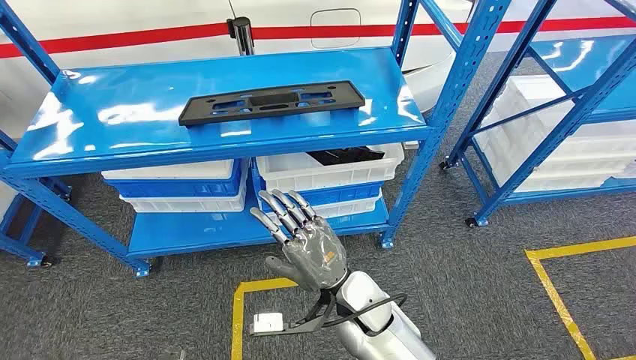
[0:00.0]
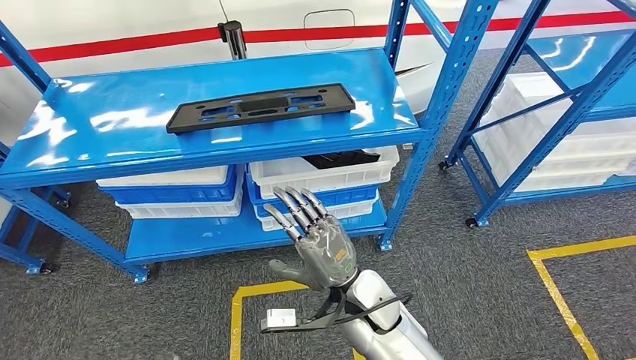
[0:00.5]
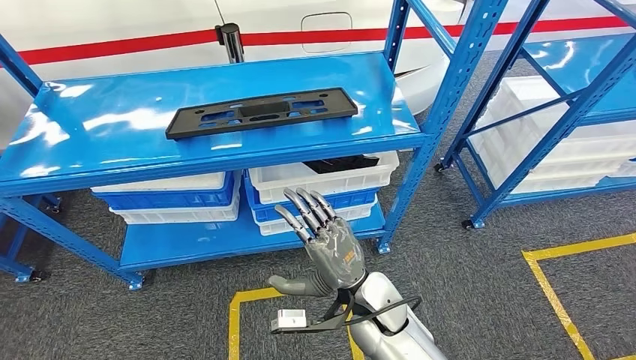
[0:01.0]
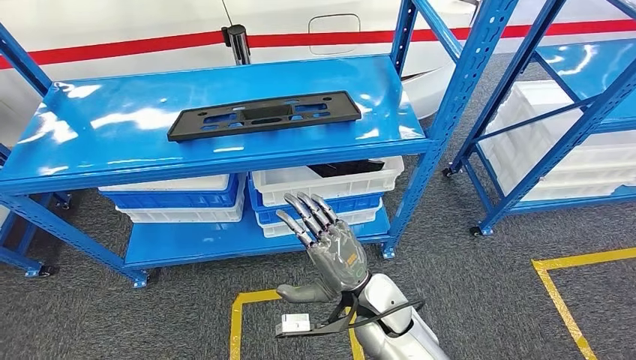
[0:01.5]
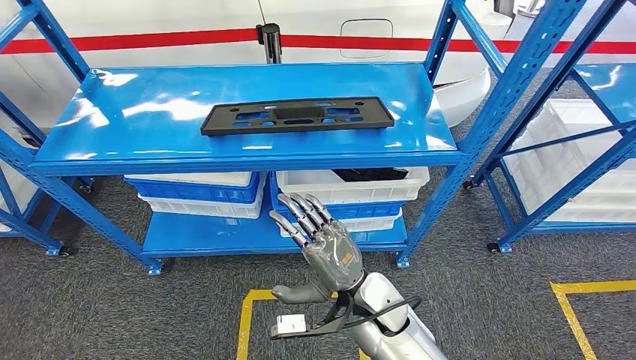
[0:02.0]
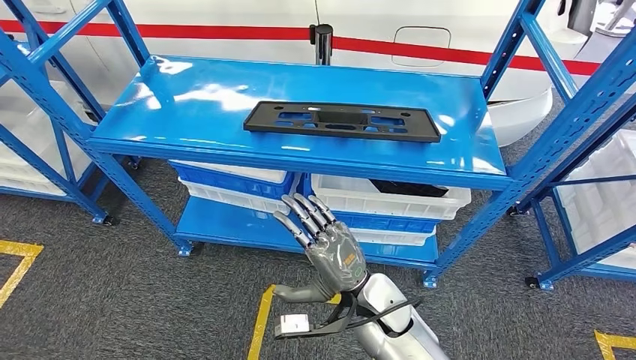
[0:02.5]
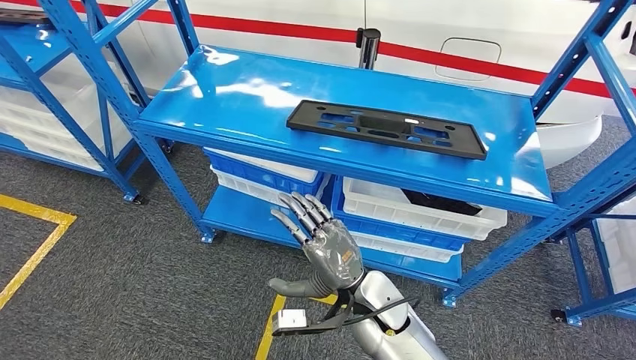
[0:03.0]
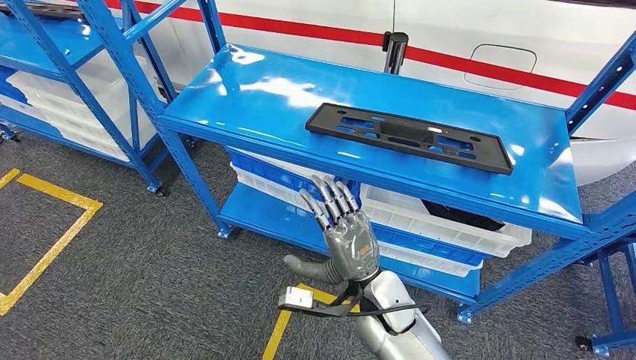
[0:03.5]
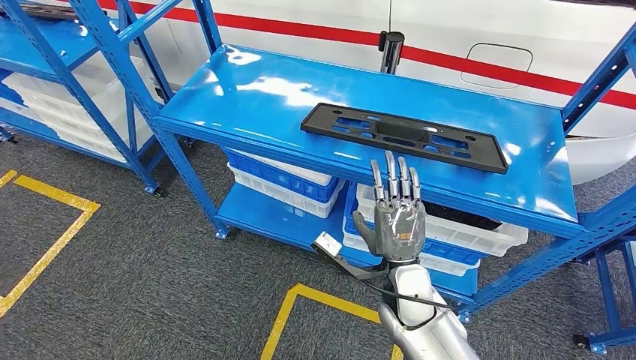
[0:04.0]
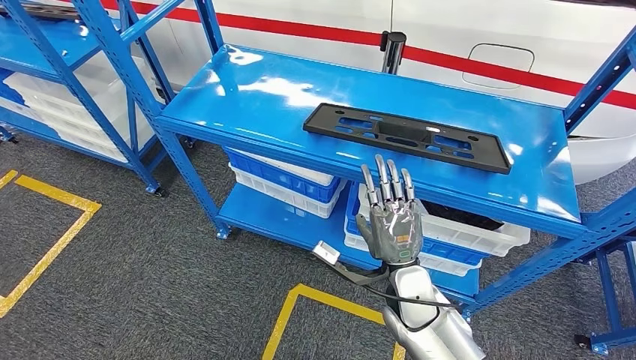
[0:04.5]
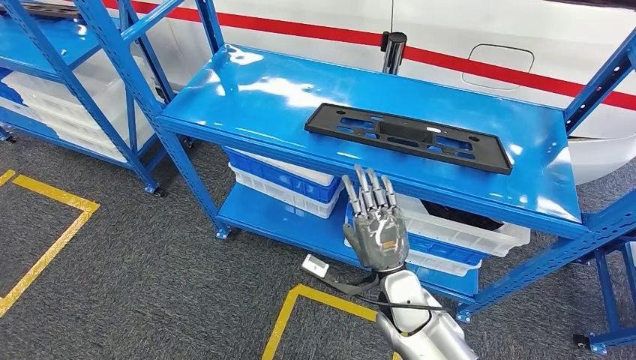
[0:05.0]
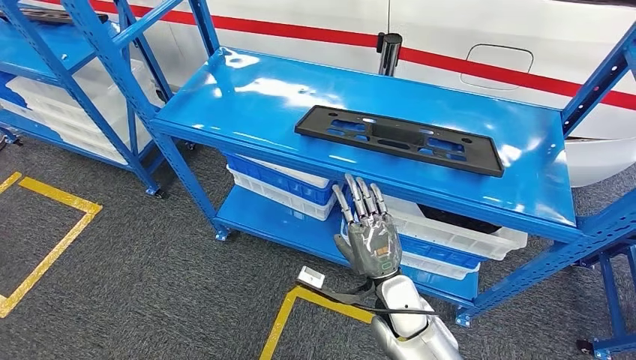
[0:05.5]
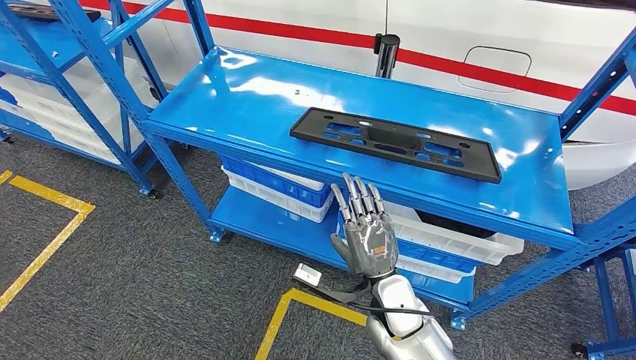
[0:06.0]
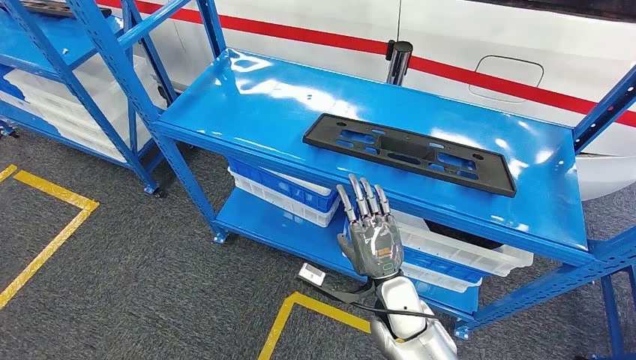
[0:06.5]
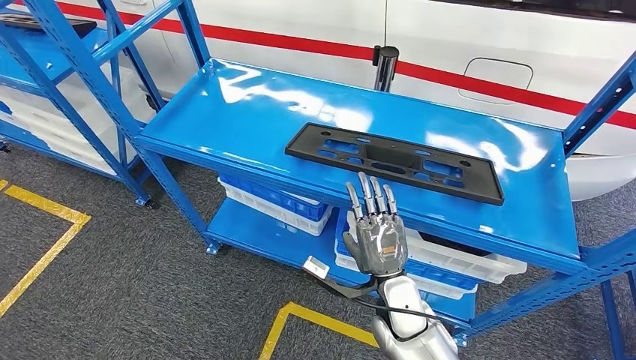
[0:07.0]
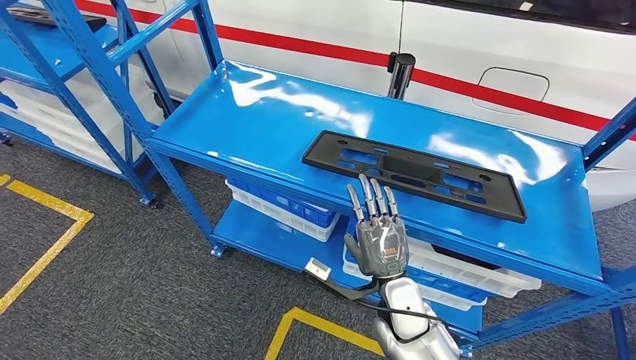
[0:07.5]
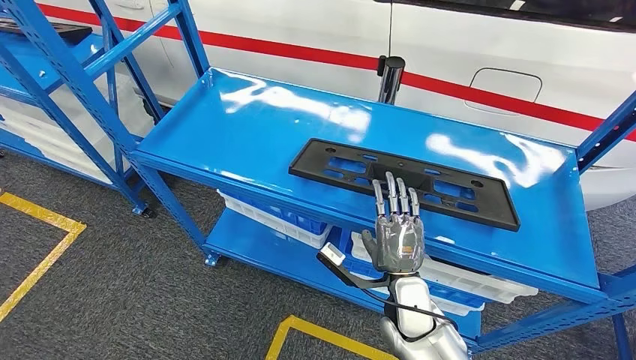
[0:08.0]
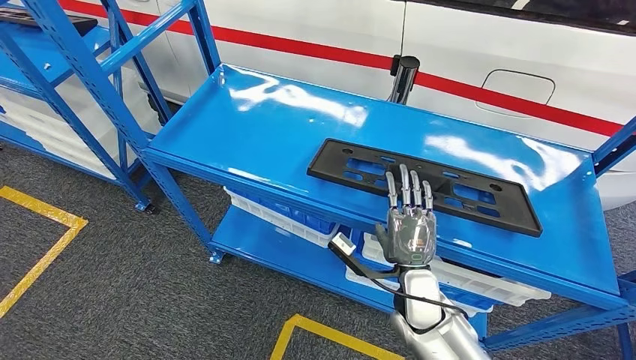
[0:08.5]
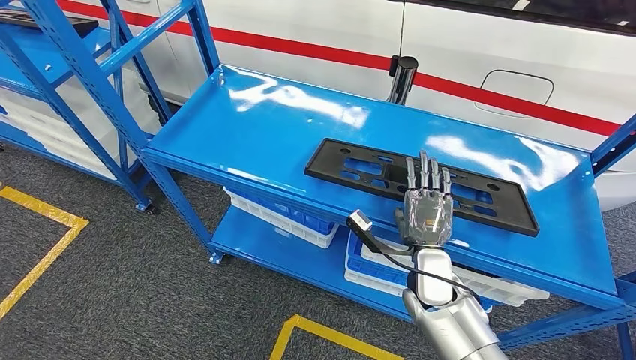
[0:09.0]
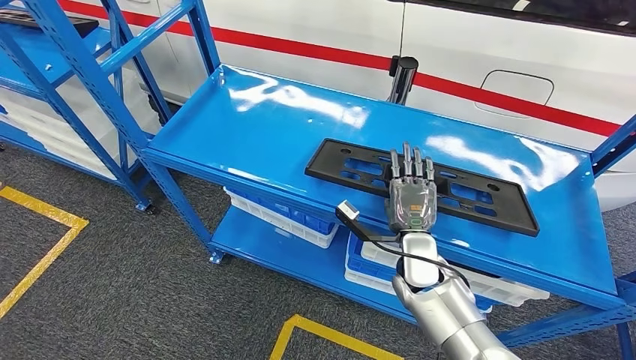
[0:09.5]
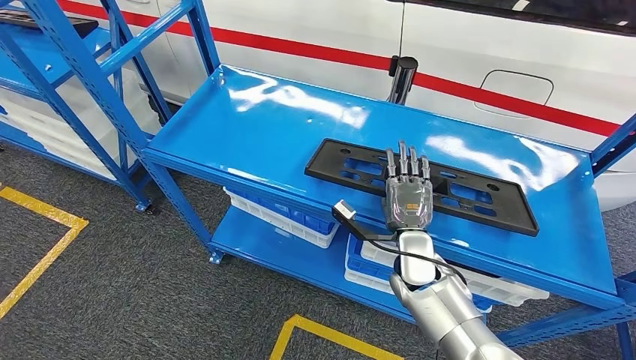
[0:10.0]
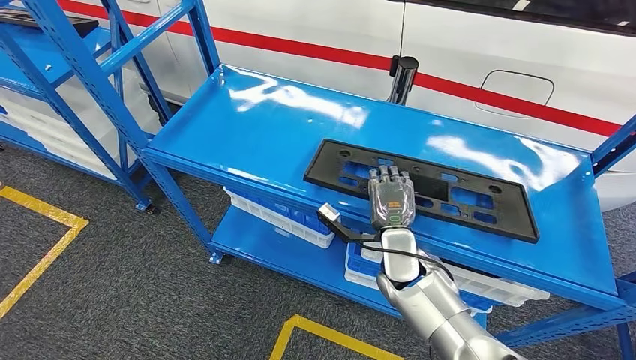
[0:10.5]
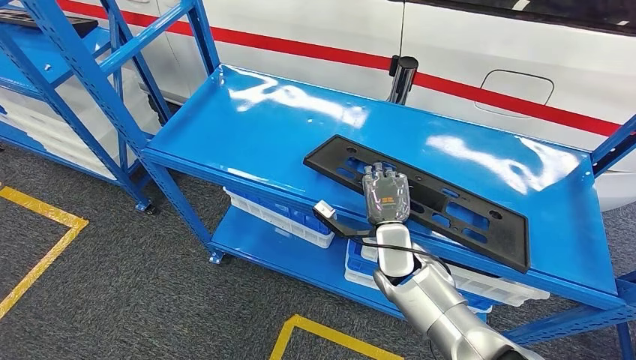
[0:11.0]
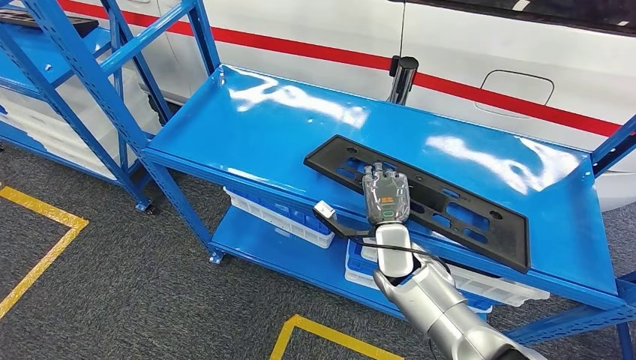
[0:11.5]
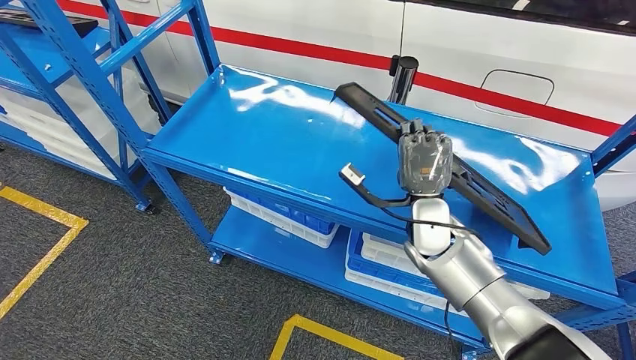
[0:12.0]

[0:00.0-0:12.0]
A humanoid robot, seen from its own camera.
0:10.0 to 0:12.0: The right hand goes approximately 5 cm upward.

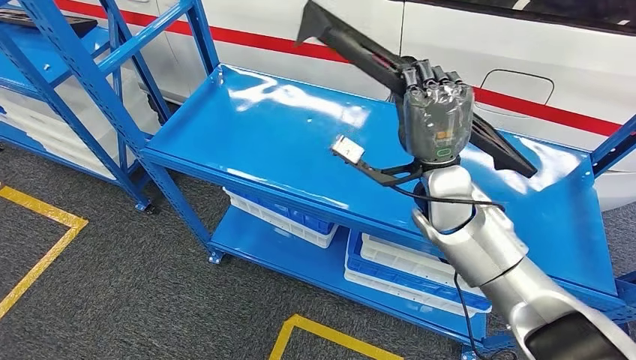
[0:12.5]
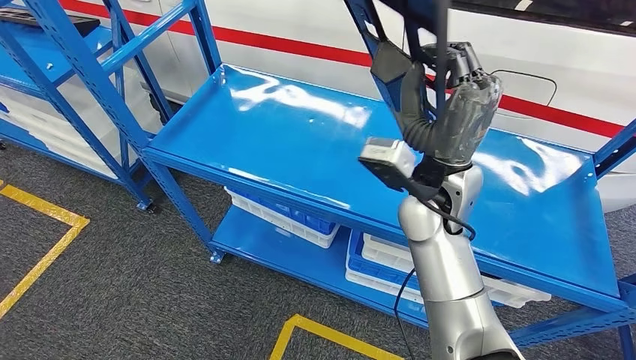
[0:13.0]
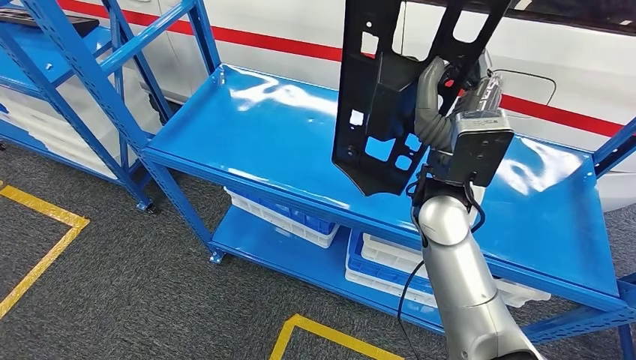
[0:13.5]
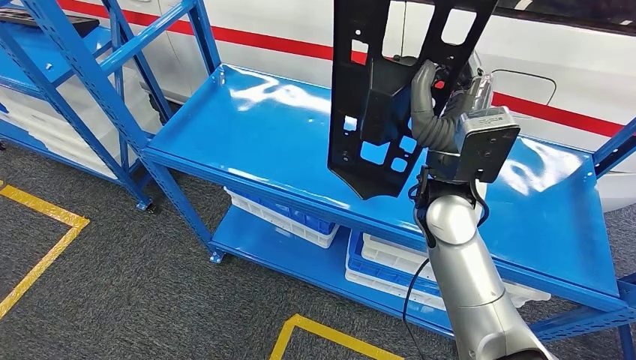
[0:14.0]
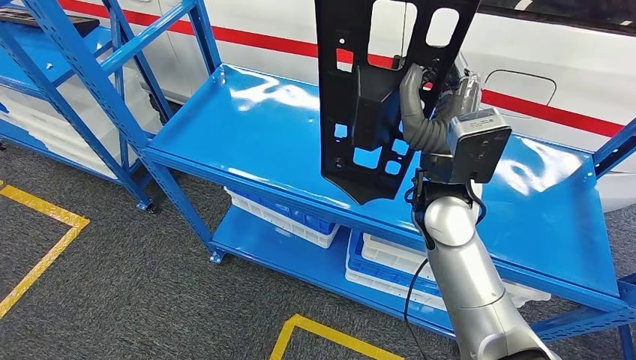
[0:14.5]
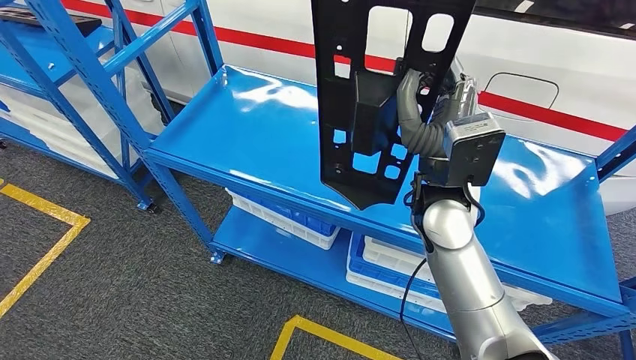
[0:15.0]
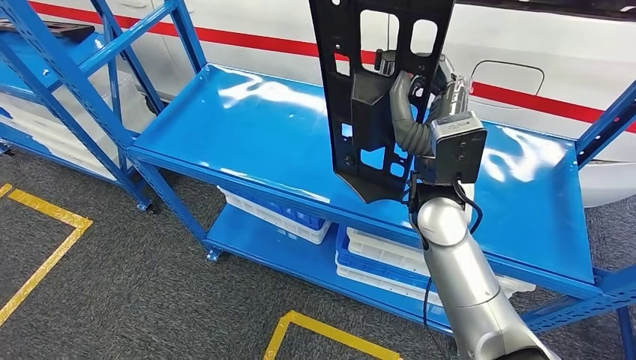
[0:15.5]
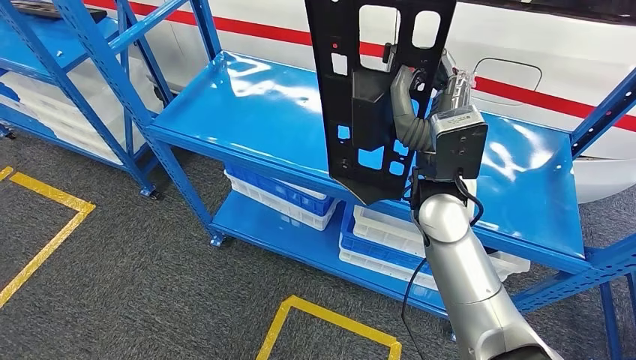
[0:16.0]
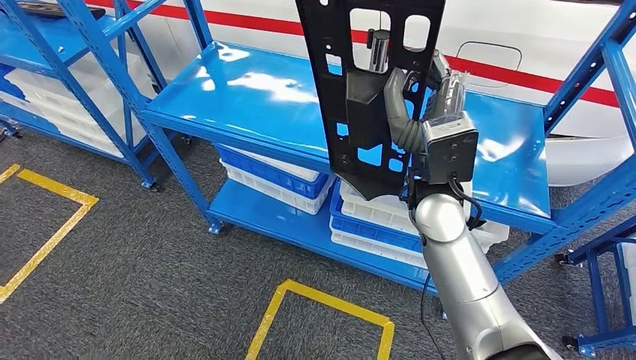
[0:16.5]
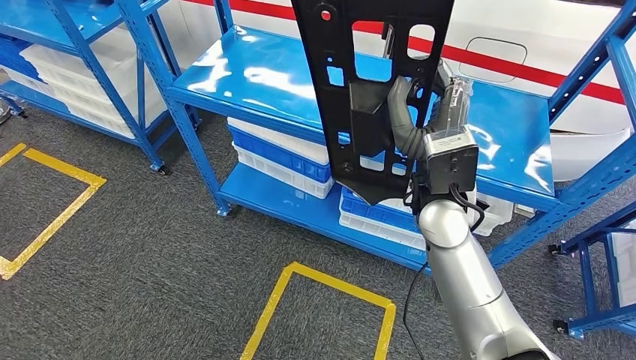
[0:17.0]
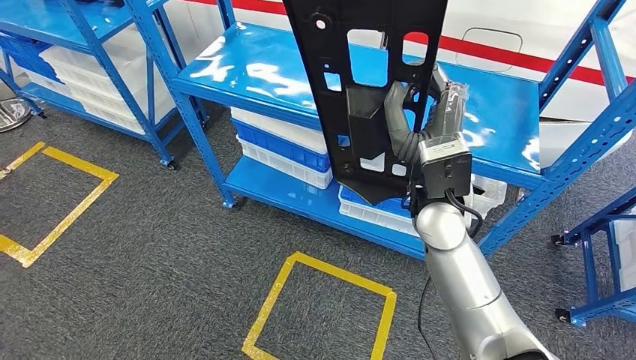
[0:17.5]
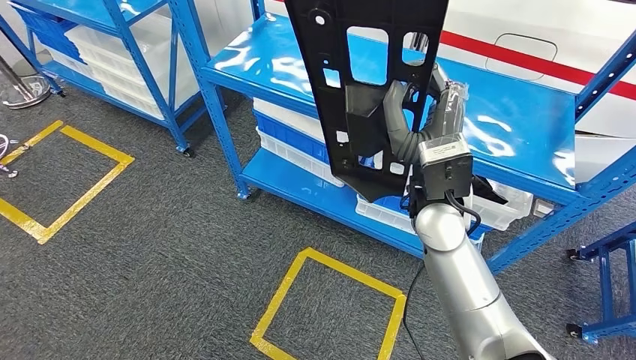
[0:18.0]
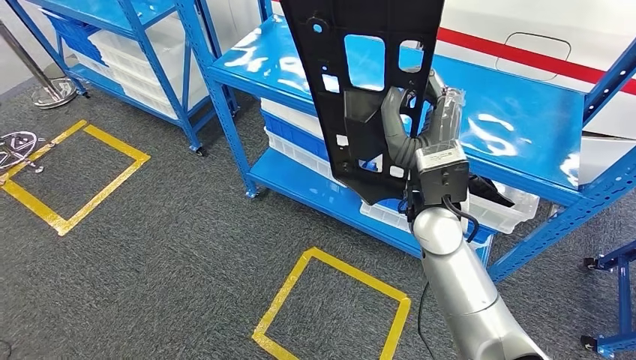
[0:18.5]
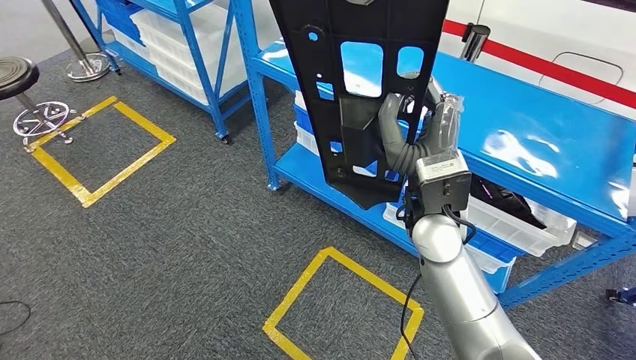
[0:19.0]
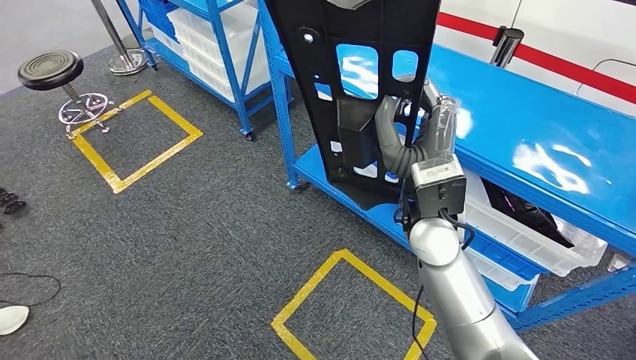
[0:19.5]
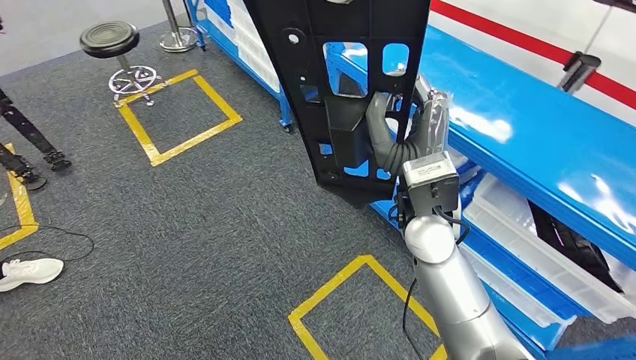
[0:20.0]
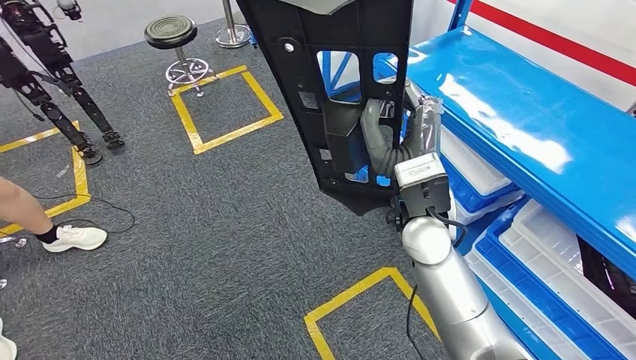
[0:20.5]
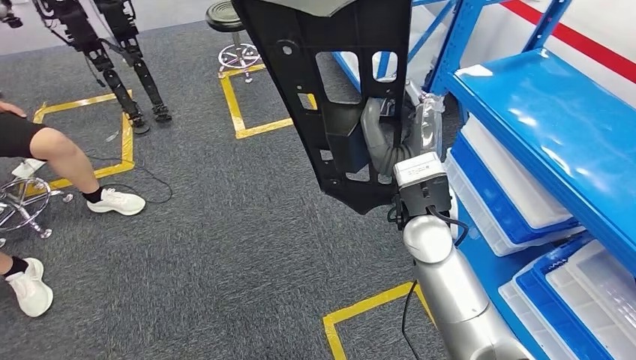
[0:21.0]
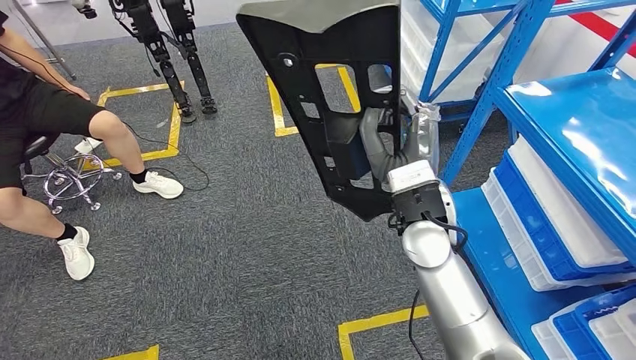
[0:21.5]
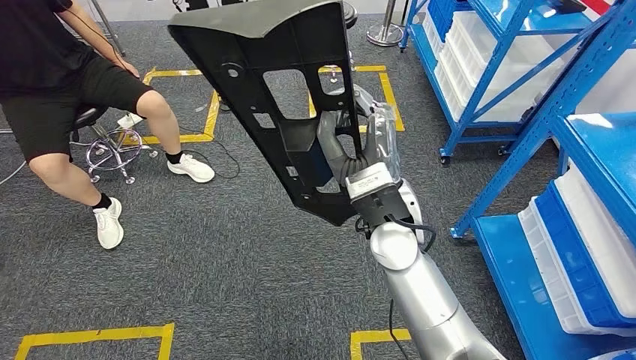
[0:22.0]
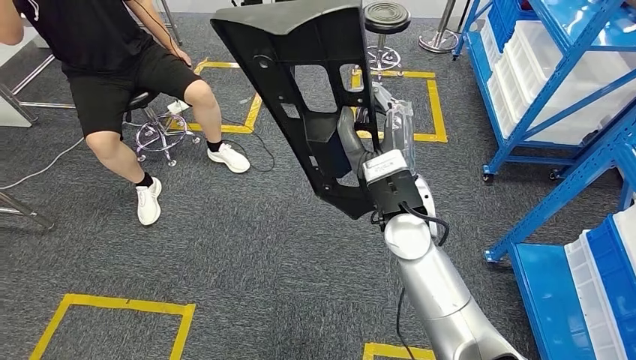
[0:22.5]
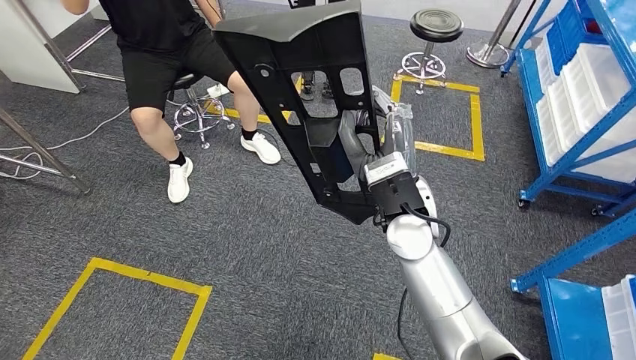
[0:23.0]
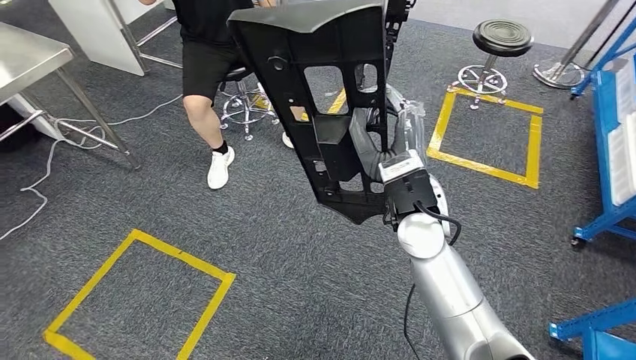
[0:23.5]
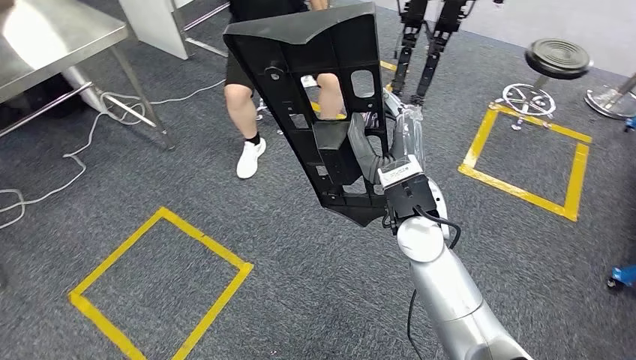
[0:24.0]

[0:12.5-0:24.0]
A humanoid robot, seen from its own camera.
Step, 0:12.5 to 0:15.0: Pick up the large material from the shelf.
